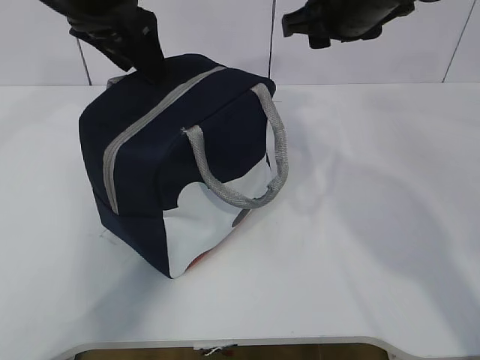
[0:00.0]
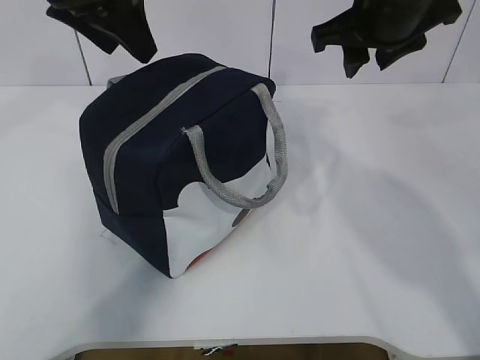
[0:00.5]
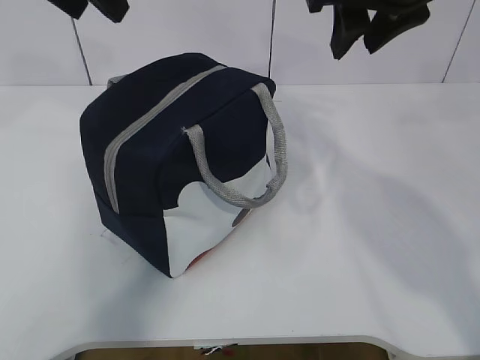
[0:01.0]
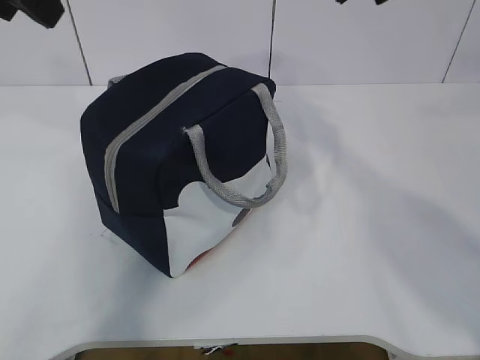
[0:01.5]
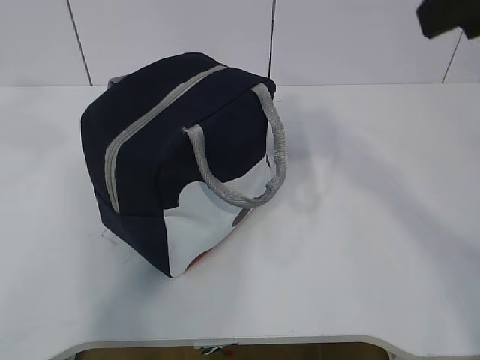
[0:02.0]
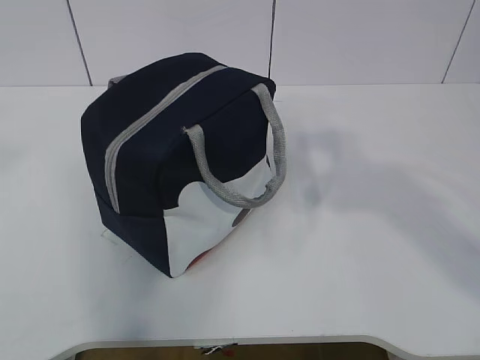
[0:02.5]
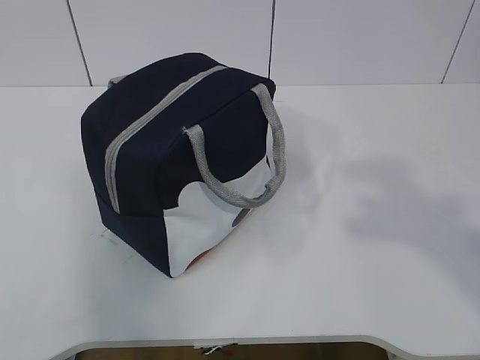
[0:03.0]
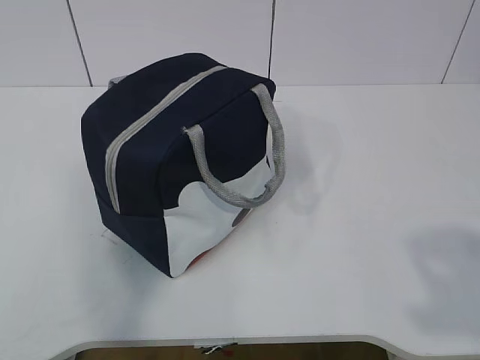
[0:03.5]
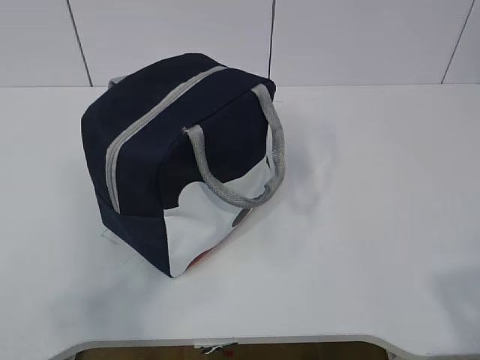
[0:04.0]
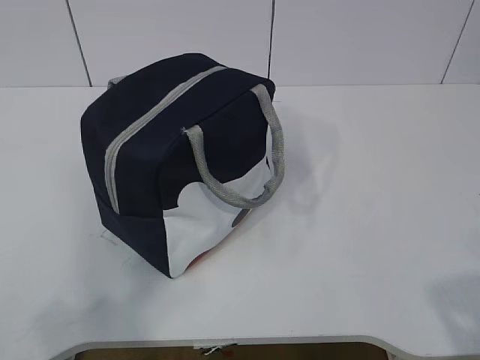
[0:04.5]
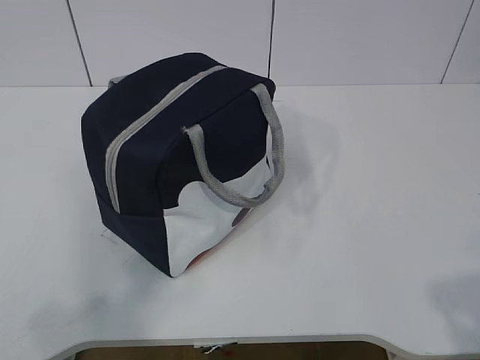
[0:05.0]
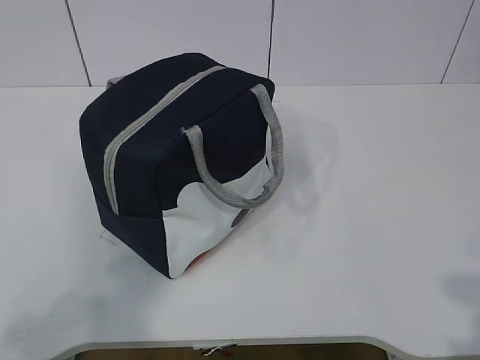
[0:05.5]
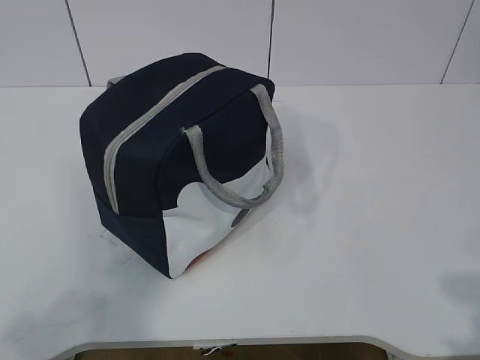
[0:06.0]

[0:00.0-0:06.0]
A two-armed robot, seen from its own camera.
0:00.0 to 0:02.0: The right gripper heads backward and upward, covering about 25 cm. Meanwhile the left gripper travels backward, upward and to the left by some 20 cm.
0:02.0 to 0:04.0: The right gripper heads backward, downward and to the right, covering approximately 30 cm. The left gripper is displaced backward, downward and to the left by approximately 30 cm, and closes up.
0:04.0 to 0:06.0: The left gripper heads downward, covering roughly 5 cm.

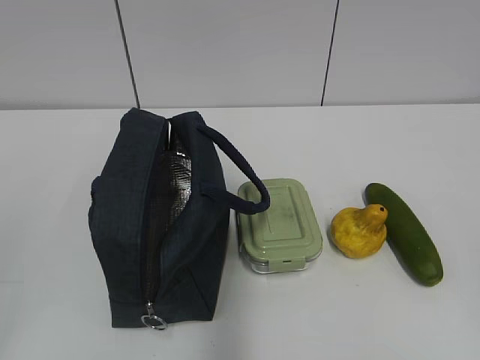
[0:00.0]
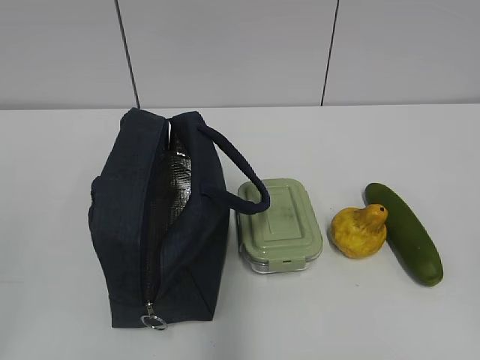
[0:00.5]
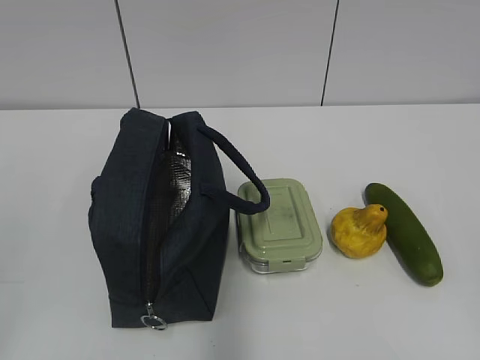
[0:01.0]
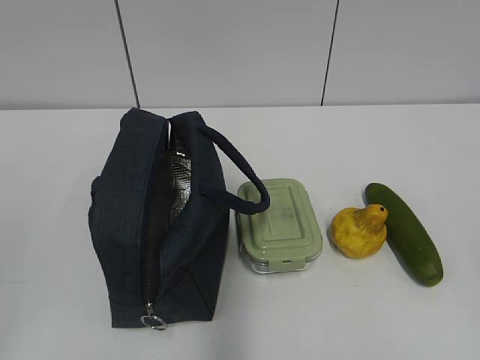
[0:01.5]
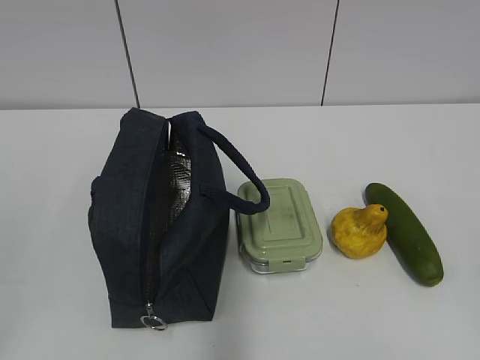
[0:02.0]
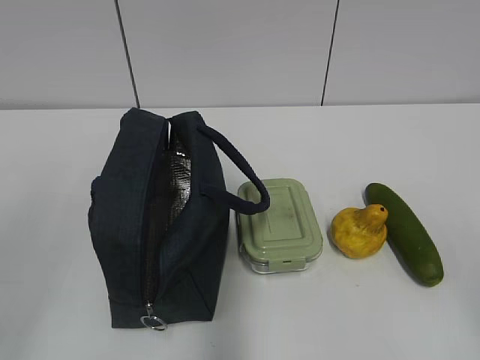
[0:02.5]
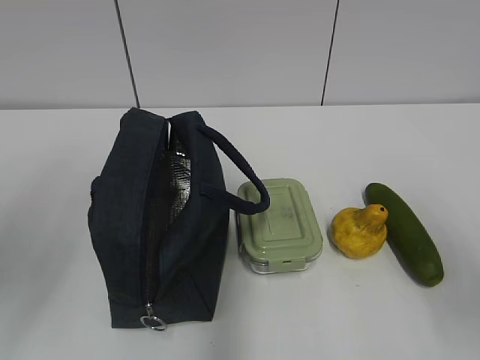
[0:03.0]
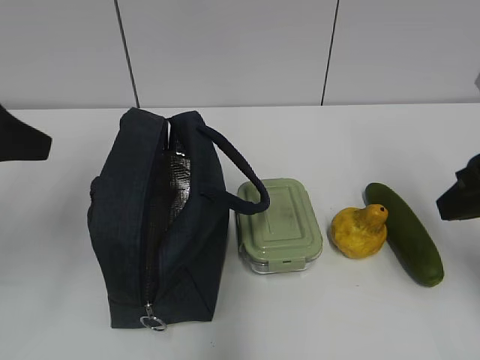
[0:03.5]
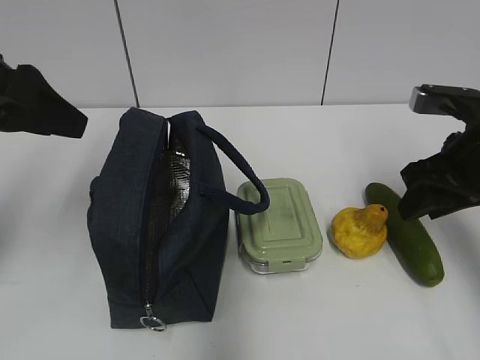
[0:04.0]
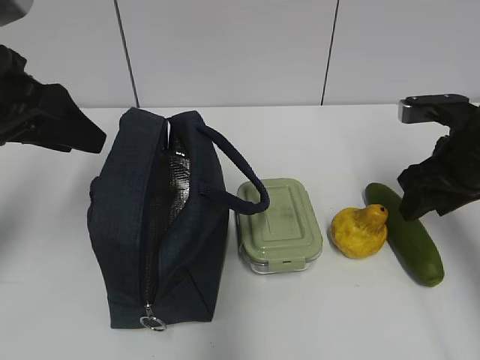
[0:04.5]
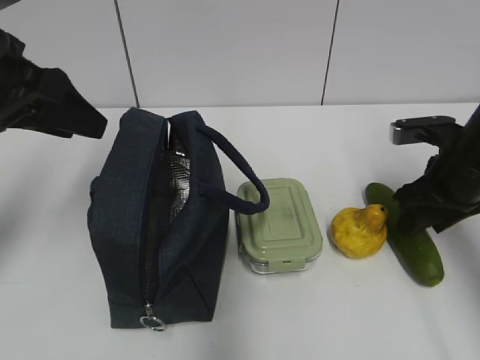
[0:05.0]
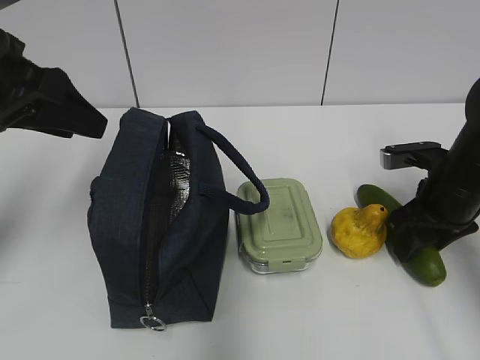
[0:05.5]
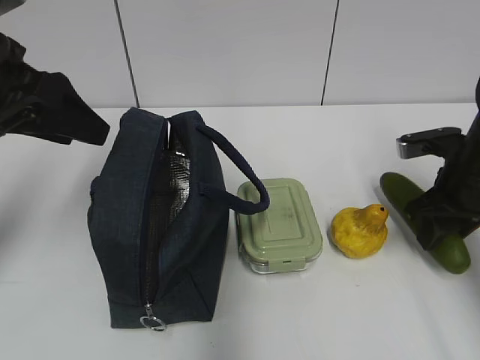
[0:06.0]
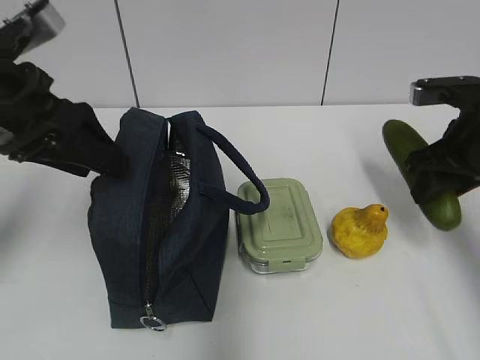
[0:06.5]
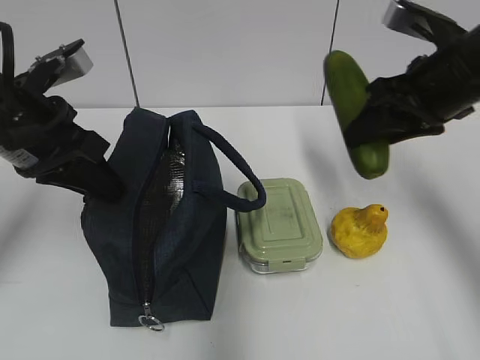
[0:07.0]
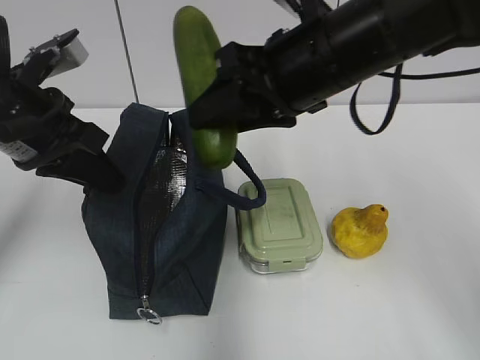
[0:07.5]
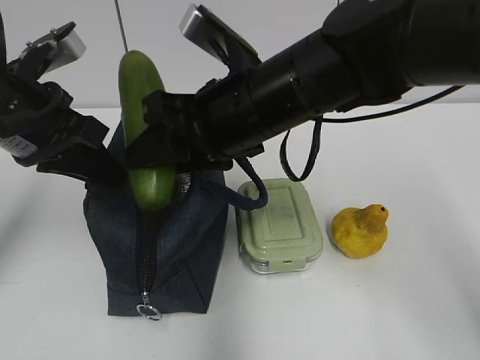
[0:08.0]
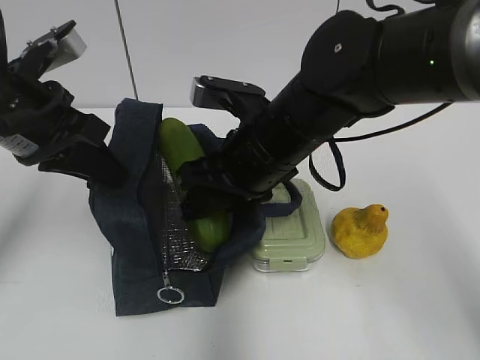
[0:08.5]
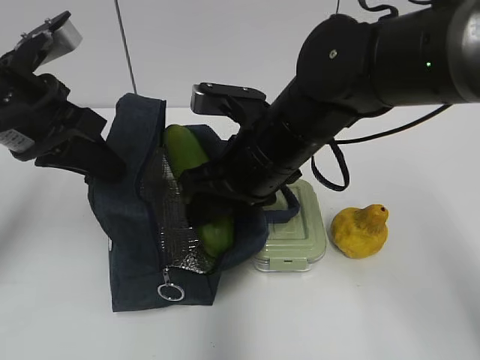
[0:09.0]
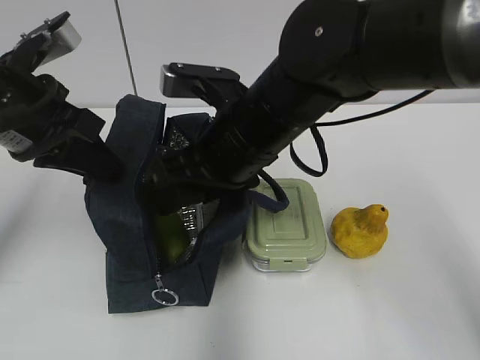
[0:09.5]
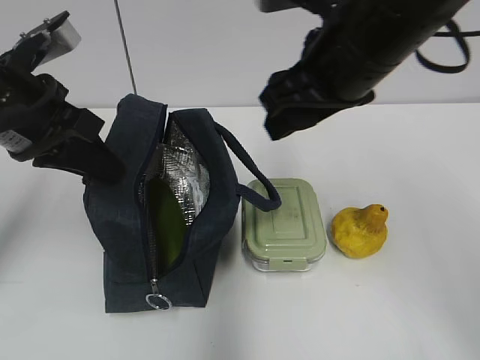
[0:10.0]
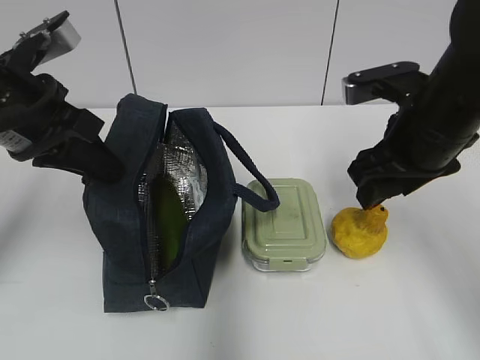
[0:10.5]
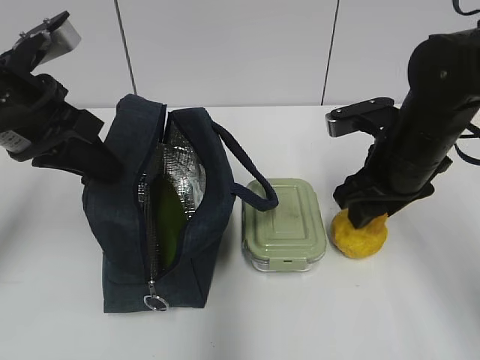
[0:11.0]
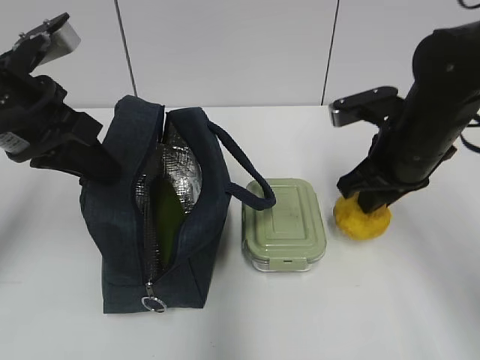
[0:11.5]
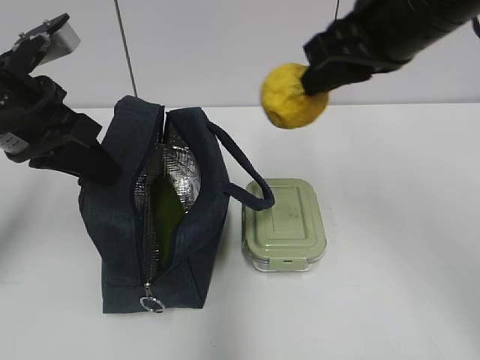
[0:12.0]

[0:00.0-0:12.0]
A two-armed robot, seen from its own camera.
Step, 0:00.0 to 0:05.5: Grab the cucumber with your right hand.
Step, 0:06.0 to 0:08.0: Grab the lunch bag with your left hand.
Step, 0:08.5 to 0:09.5: Place it into the bag with your right hand.
Step, 0:10.0 to 0:11.0: Grab the pear with your right hand.
0:02.0 to 0:04.0: The two grippers go roughly 30 cm forward.
0:04.0 to 0:06.0: The right gripper is displaced downward by some 5 cm.
0:06.0 to 0:08.0: The right gripper heads to the left and upward, covering approximately 25 cm, while the left gripper closes.
0:08.0 to 0:10.0: The right gripper travels to the right and upward by approximately 10 cm.
0:10.0 to 0:12.0: The right gripper travels downward and back again, roughly 10 cm each way, and closes its fingers.

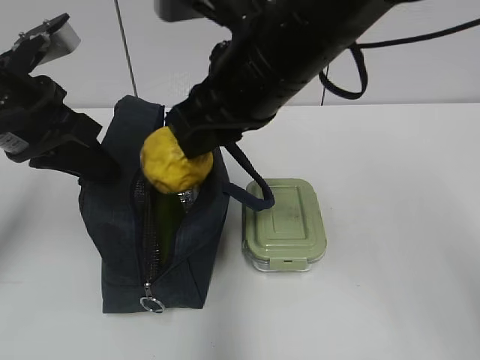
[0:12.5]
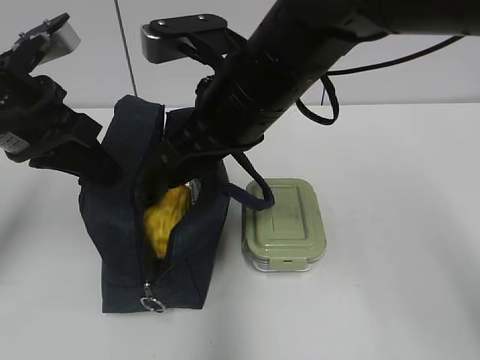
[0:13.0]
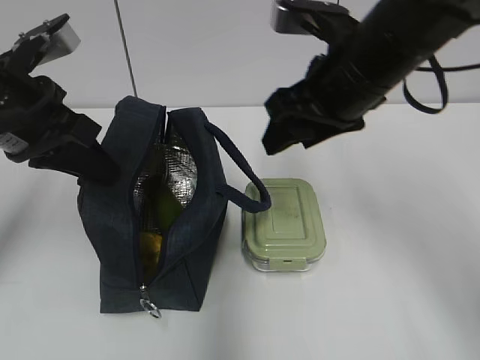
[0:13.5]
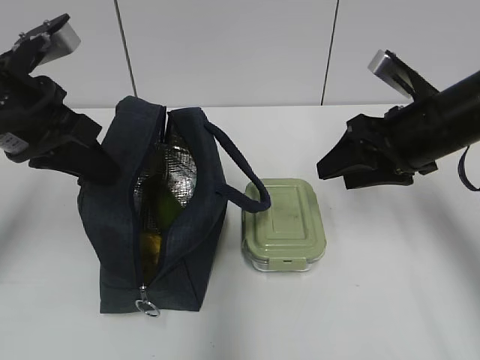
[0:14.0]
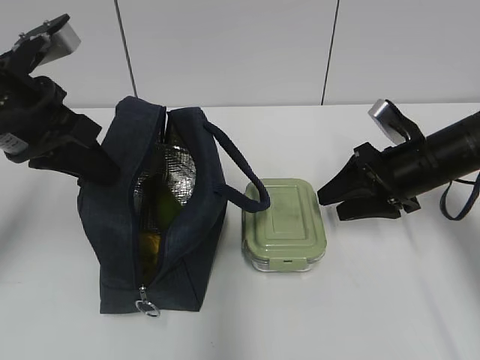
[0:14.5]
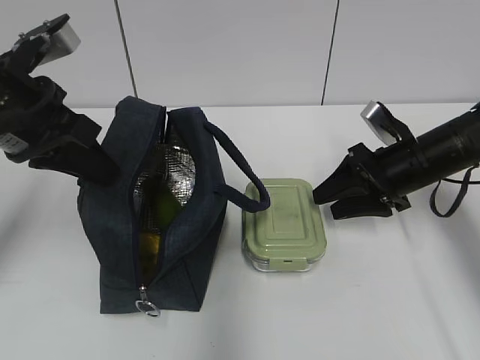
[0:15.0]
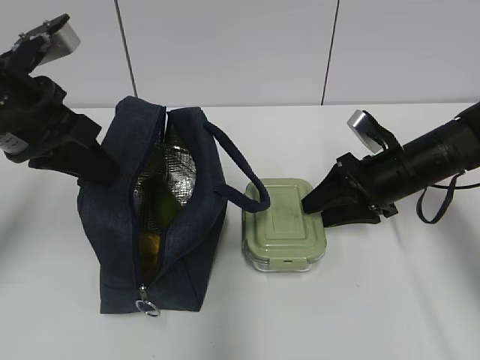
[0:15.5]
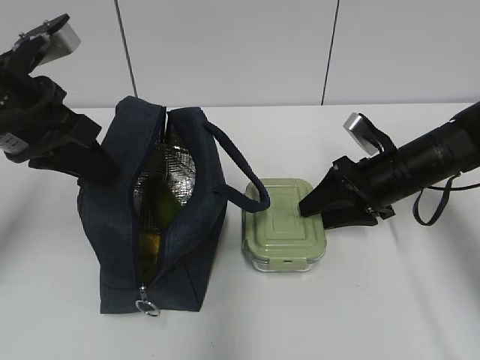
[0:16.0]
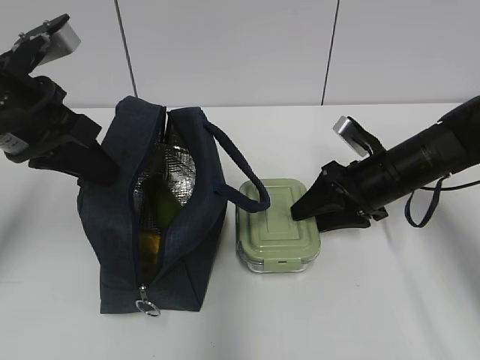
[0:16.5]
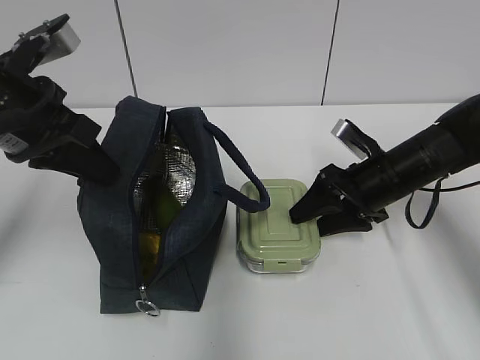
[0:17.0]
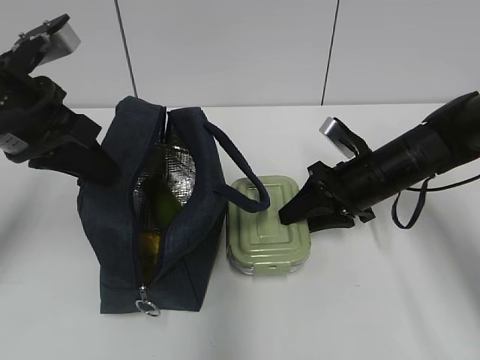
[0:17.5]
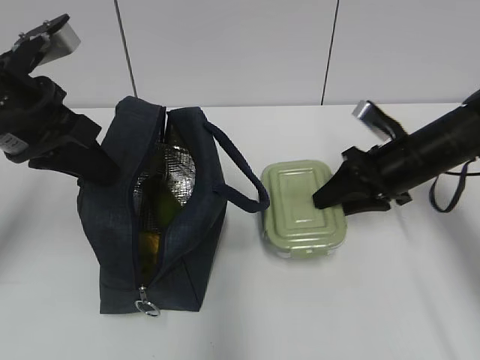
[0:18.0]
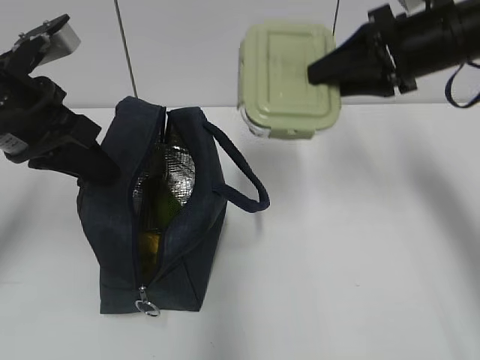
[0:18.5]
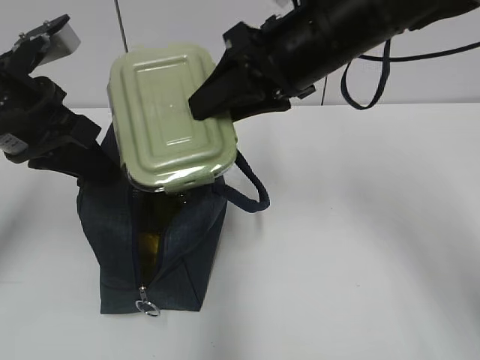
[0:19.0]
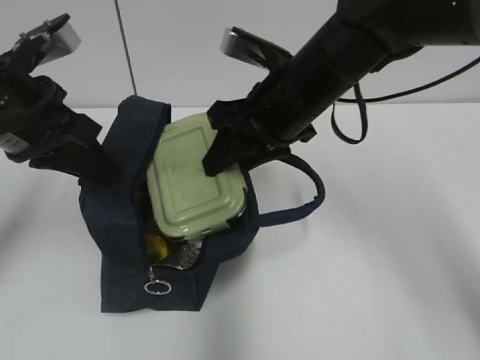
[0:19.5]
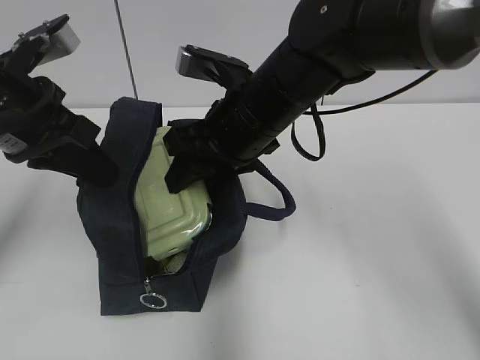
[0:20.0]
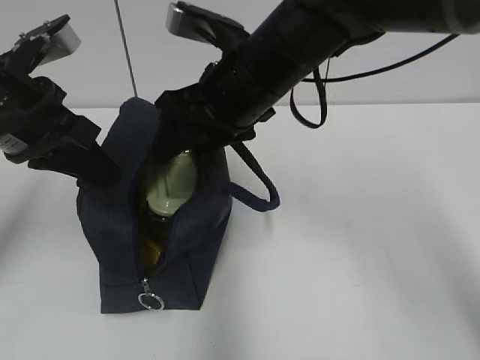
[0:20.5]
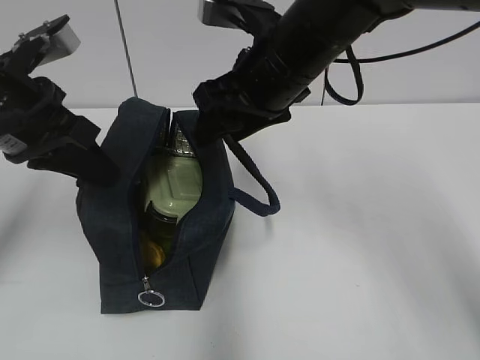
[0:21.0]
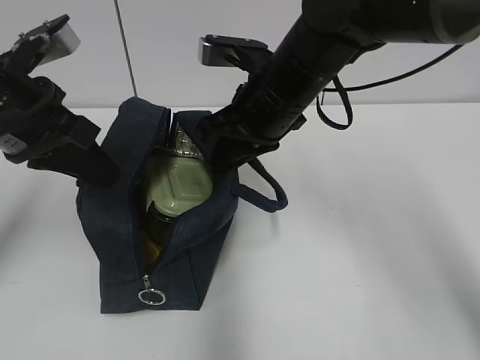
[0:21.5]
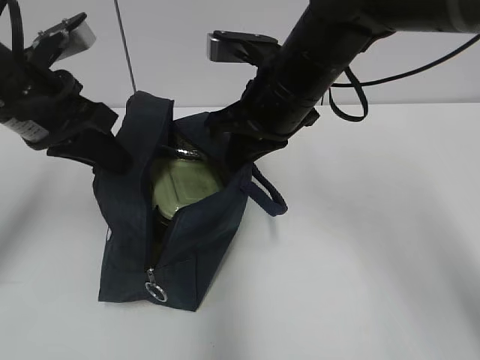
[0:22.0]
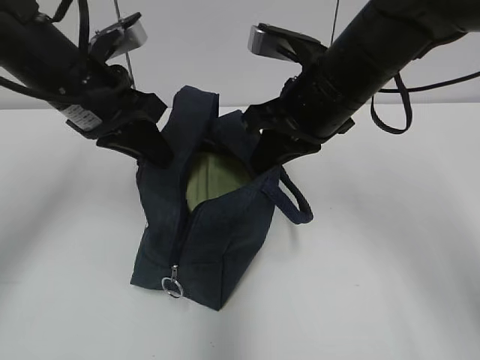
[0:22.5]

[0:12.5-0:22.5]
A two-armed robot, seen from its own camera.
Step, 0:13.5 to 0:17.0: Grab the lunch box with your right hand.
Step, 0:20.5 to 0:21.5: Grab the lunch bag with your right hand.
0:12.5 to 0:14.5: The right gripper shifts roughly 25 cm to the right and downward, and opens its fingers.
0:14.5 to 0:16.5: The grippers move only a little.
0:16.5 to 0:18.5: The right gripper travels upward by roughly 20 cm.
0:18.5 to 0:20.5: The right gripper goes roughly 20 cm to the left.
0:20.5 to 0:22.5: The right gripper shifts some 5 cm to the right, and closes. Meanwhile the left gripper heads forward, covering about 5 cm.
